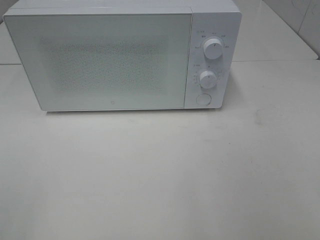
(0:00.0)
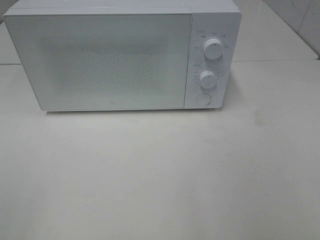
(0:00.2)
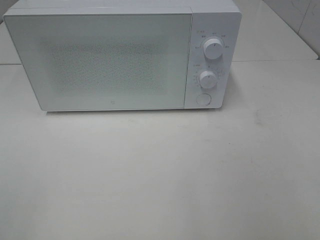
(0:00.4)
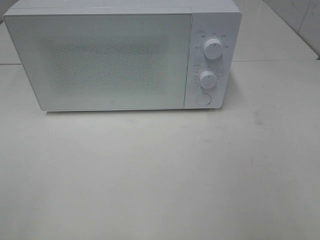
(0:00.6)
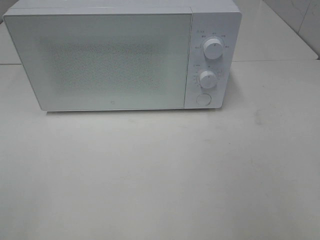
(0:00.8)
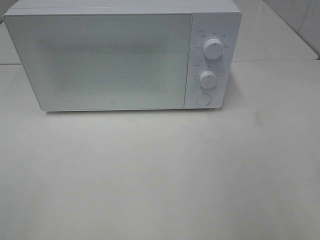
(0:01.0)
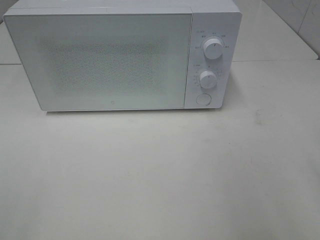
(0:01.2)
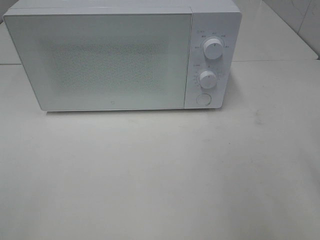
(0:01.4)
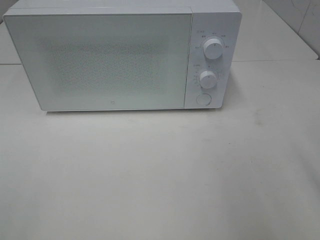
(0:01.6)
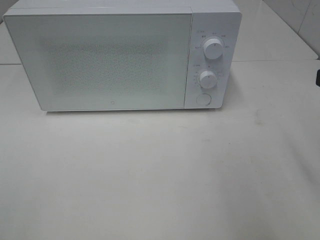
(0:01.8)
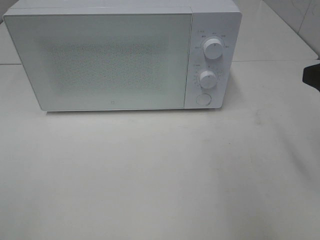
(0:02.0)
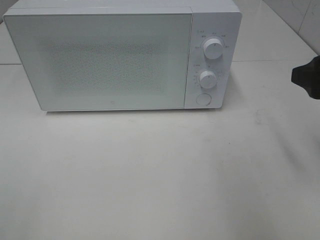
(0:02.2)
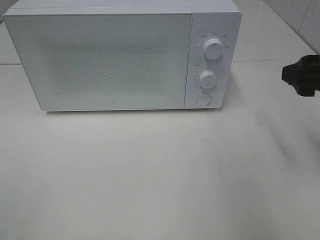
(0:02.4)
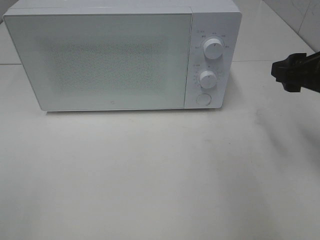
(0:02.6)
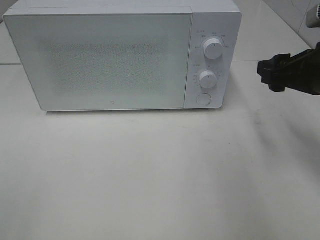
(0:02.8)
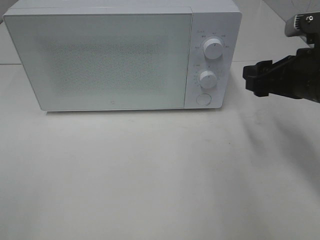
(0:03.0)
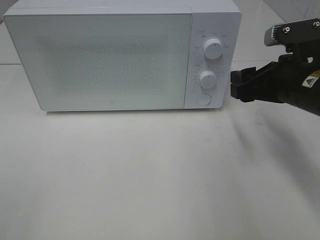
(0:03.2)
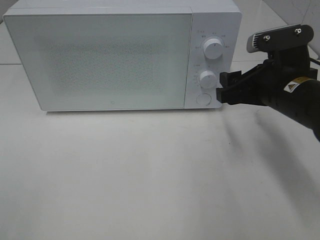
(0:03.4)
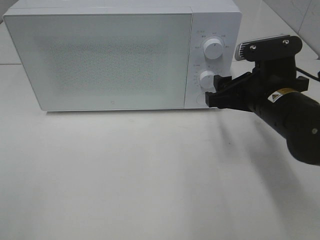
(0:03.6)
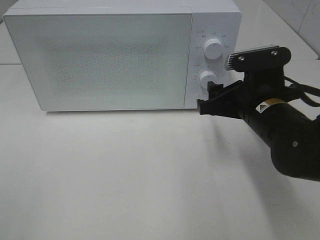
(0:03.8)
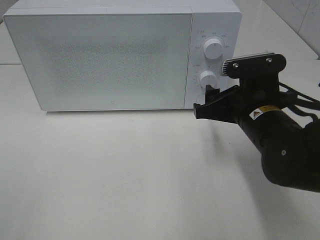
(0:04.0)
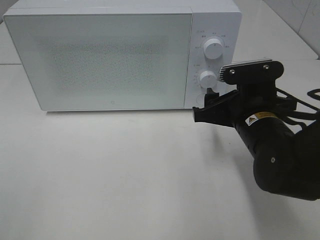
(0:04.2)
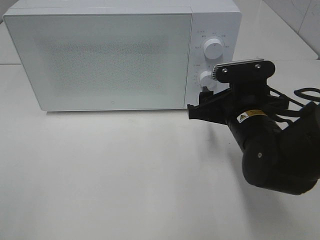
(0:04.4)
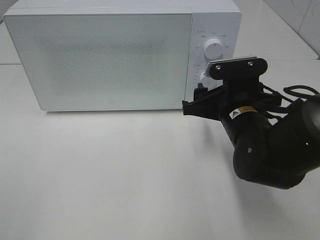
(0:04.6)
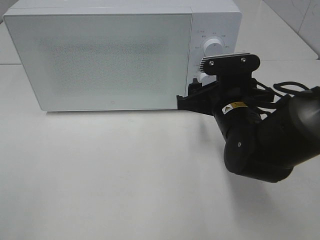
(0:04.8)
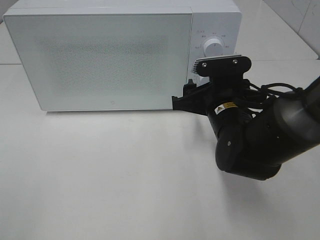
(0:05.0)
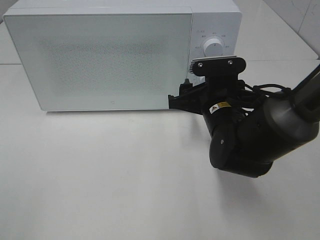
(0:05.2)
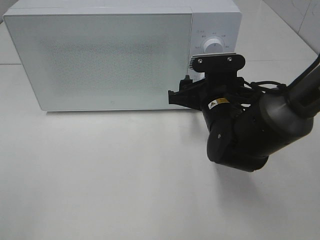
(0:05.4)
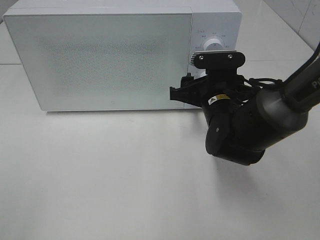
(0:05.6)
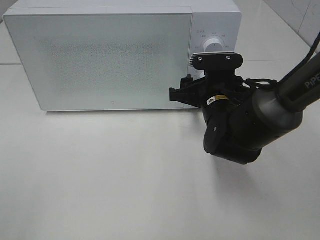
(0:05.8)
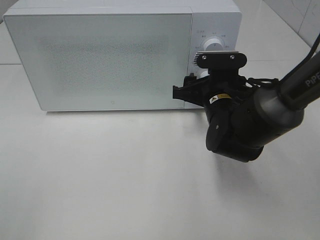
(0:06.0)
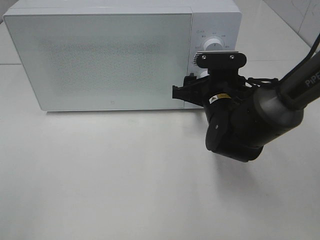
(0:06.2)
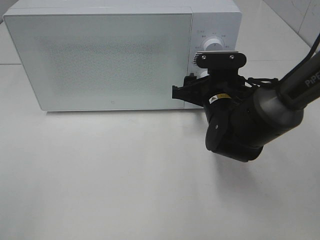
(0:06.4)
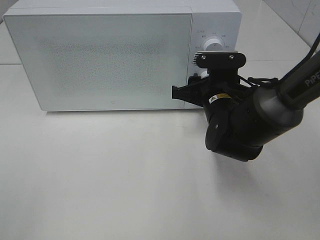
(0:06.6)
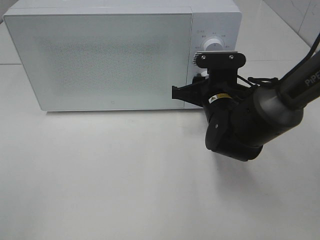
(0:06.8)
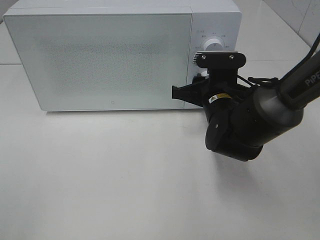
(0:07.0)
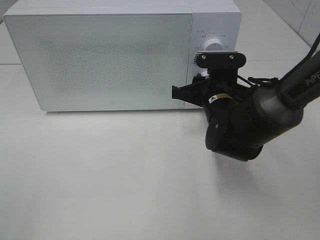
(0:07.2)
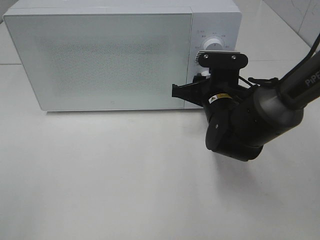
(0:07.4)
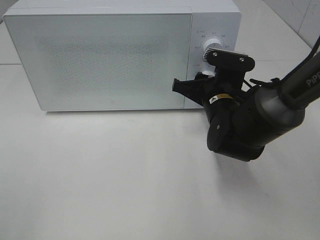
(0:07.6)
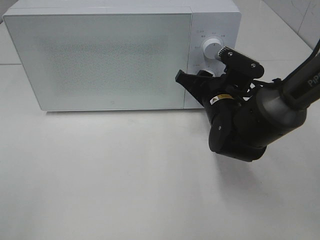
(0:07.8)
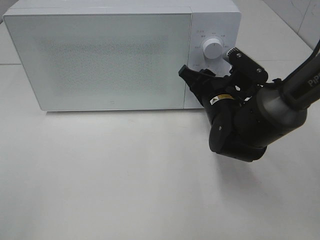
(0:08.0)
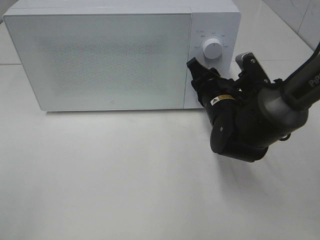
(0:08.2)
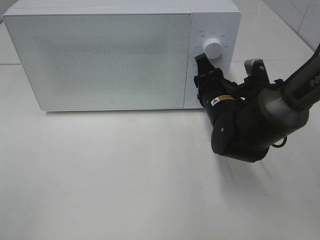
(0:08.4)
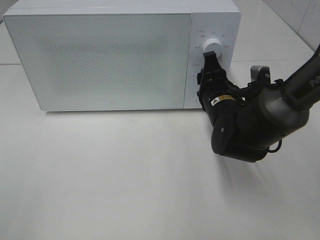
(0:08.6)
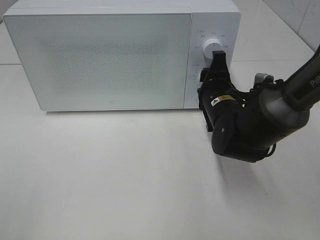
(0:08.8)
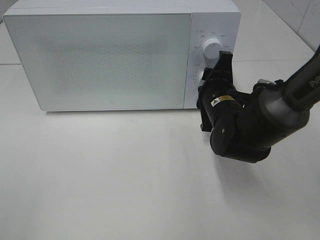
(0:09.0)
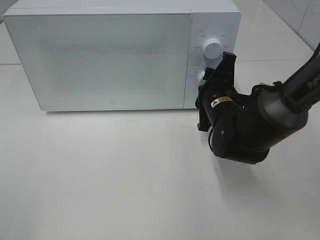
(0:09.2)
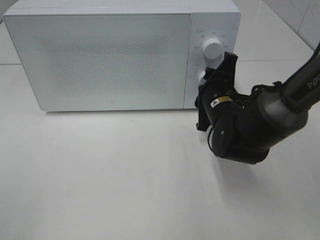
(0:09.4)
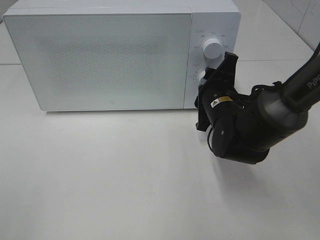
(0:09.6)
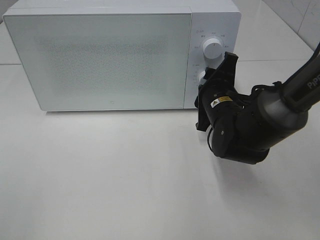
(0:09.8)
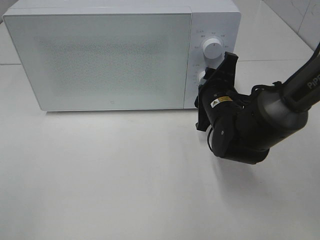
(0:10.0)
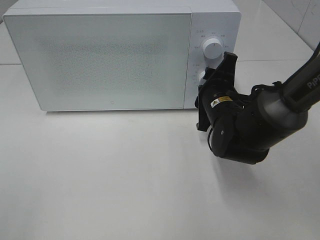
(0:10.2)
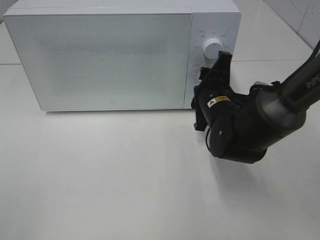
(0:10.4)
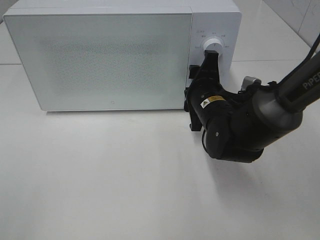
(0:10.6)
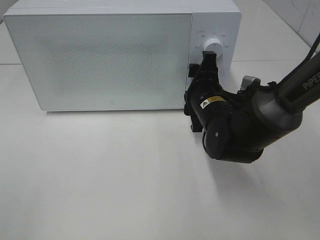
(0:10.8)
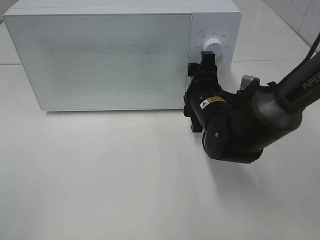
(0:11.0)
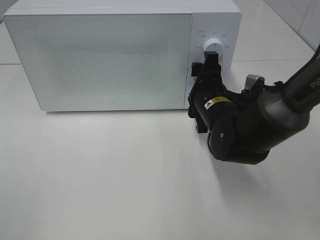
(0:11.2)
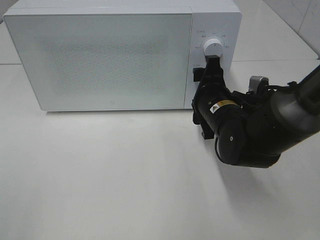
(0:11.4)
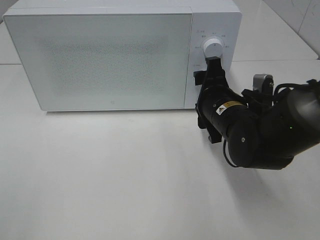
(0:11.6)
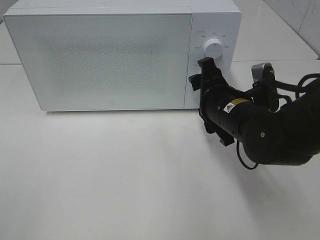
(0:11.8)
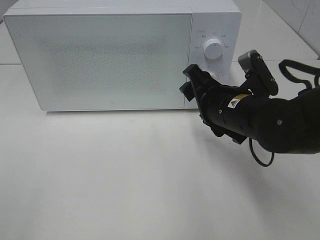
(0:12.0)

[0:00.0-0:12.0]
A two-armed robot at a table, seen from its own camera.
Task of the whole recording: Heat the burger.
Step, 0:00.0 to 0:10.4: Right hand: twist timer button.
0:01.6 to 0:03.0: The right gripper travels forward and downward by about 15 cm.
0:03.0 to 0:04.4: The right gripper goes about 10 cm to the left and downward.
0:04.4 to 0:06.0: The right gripper shifts roughly 5 cm forward.
0:06.0 to 0:07.6: The right gripper closes up.
0:09.0 to 0:10.4: The grippers stay close to where they were, moving slightly.
0:10.4 to 0:12.0: The right gripper travels backward by about 5 cm.

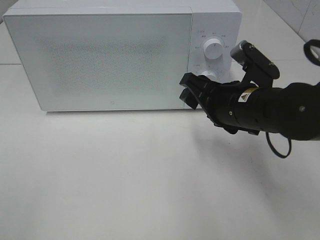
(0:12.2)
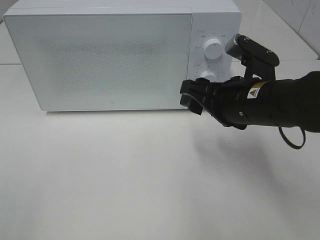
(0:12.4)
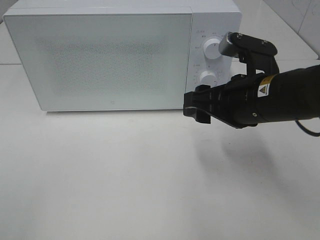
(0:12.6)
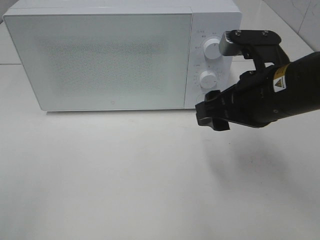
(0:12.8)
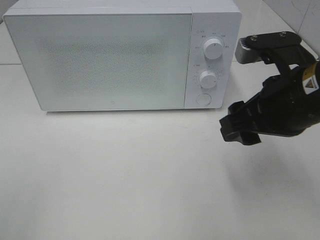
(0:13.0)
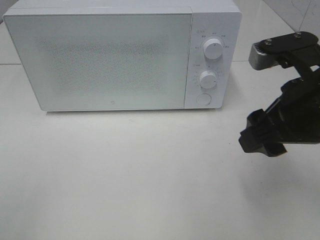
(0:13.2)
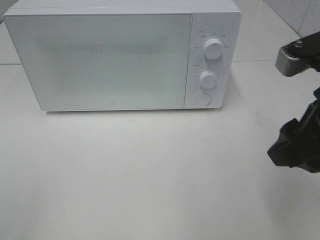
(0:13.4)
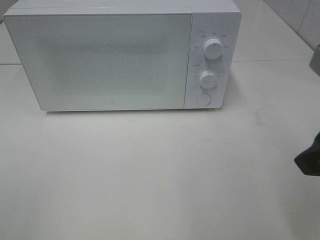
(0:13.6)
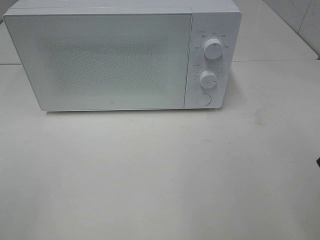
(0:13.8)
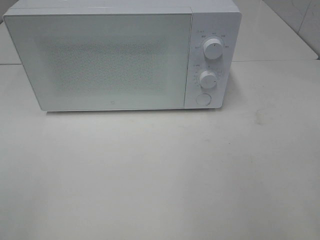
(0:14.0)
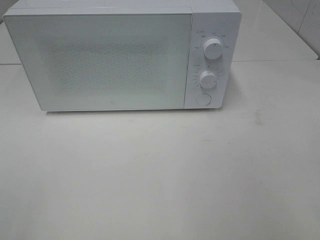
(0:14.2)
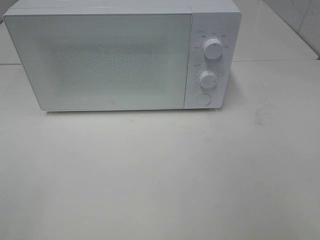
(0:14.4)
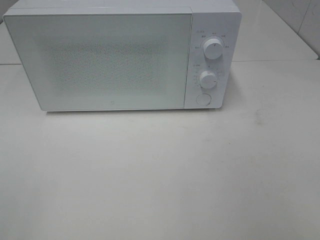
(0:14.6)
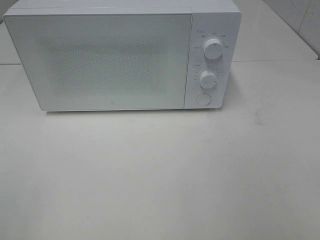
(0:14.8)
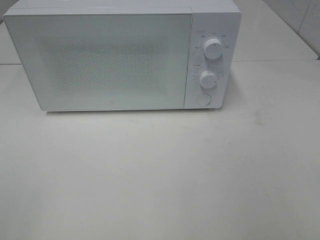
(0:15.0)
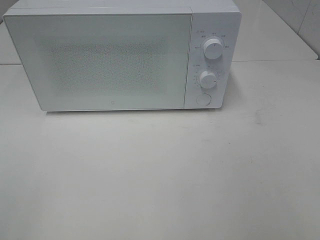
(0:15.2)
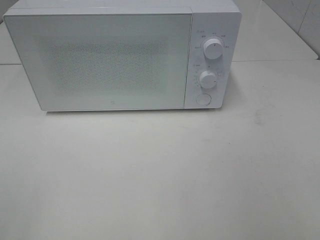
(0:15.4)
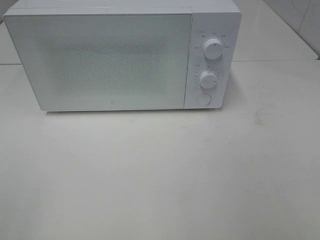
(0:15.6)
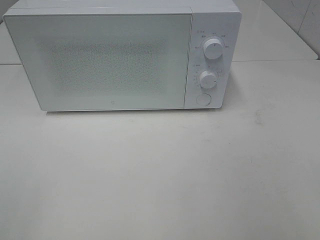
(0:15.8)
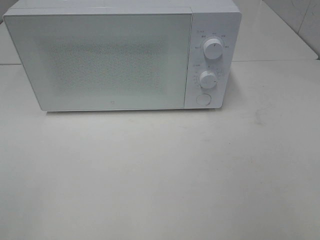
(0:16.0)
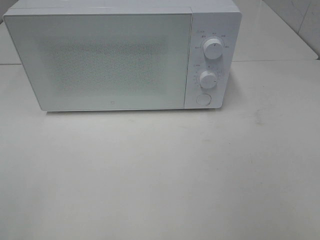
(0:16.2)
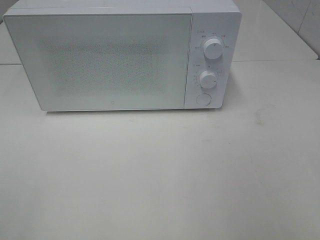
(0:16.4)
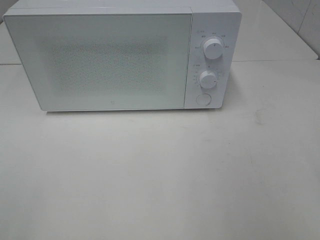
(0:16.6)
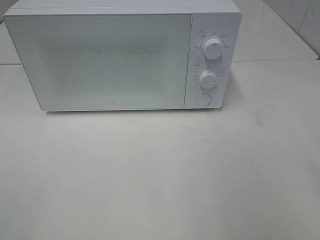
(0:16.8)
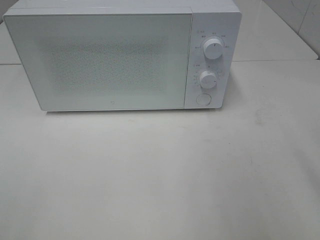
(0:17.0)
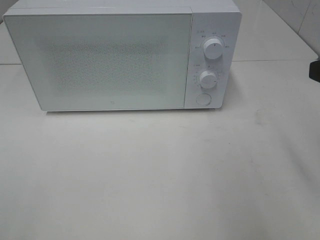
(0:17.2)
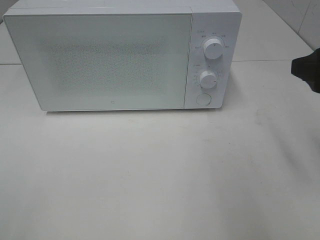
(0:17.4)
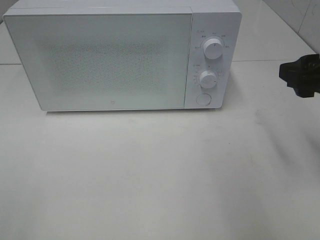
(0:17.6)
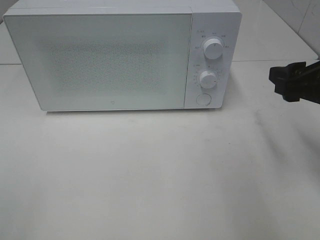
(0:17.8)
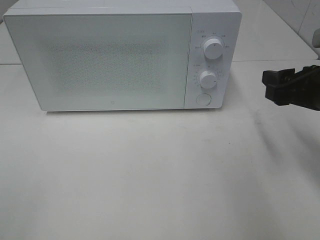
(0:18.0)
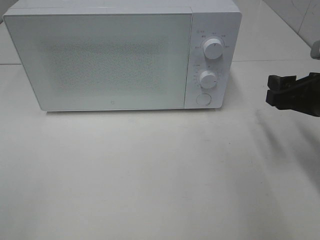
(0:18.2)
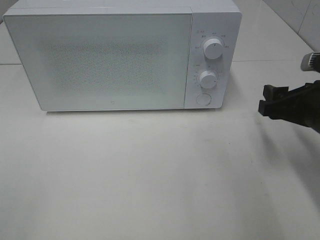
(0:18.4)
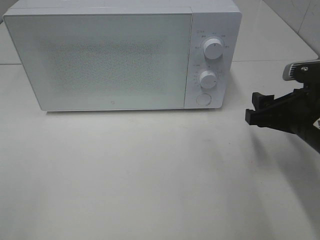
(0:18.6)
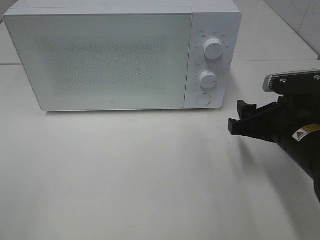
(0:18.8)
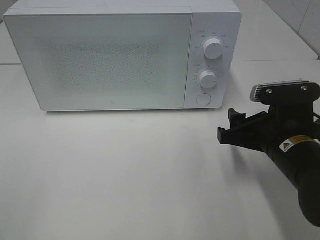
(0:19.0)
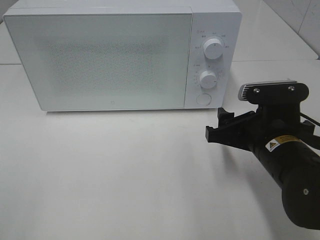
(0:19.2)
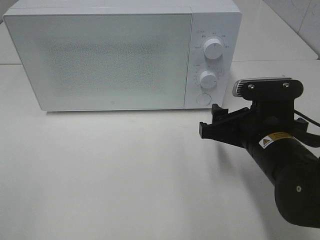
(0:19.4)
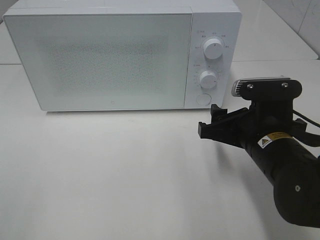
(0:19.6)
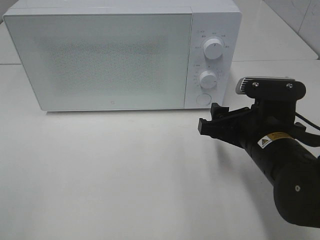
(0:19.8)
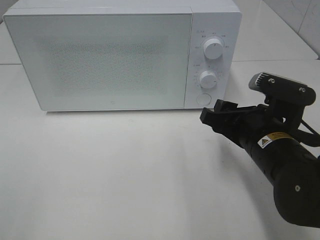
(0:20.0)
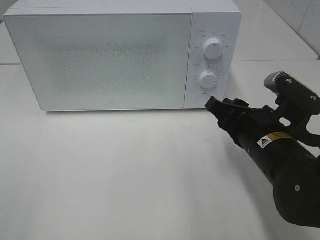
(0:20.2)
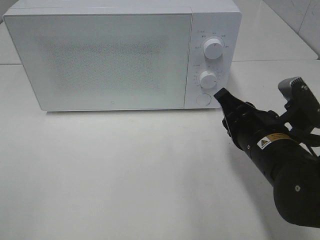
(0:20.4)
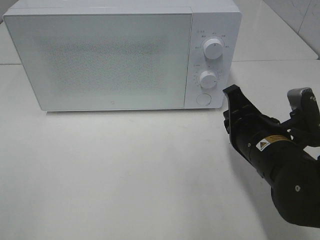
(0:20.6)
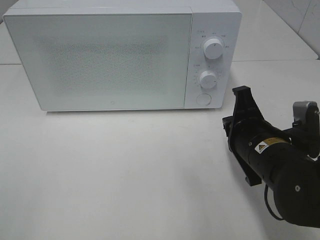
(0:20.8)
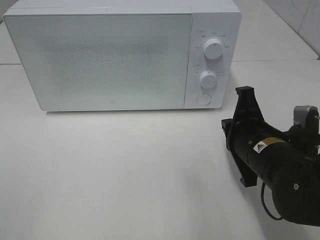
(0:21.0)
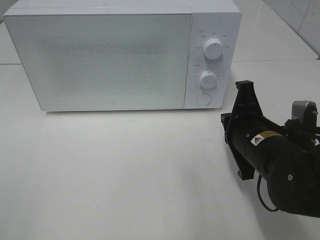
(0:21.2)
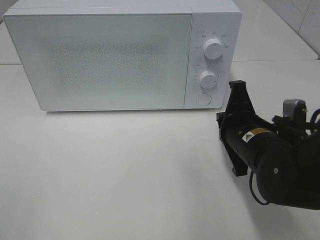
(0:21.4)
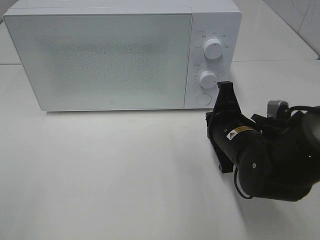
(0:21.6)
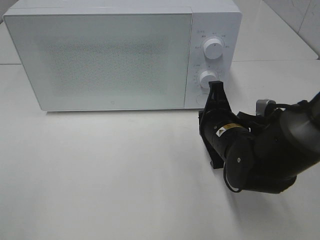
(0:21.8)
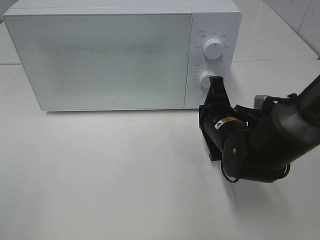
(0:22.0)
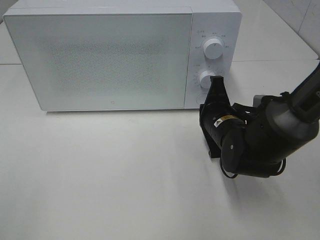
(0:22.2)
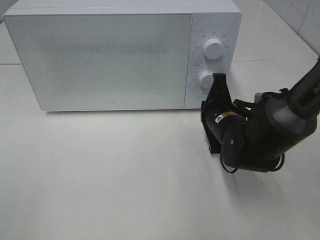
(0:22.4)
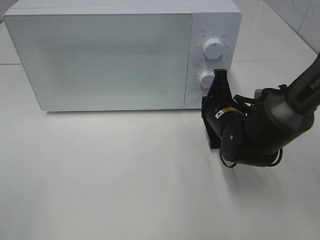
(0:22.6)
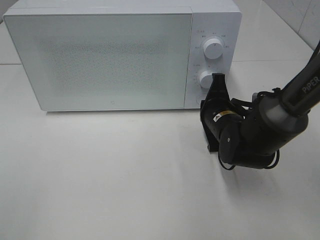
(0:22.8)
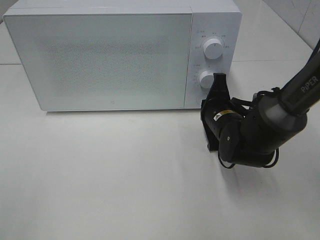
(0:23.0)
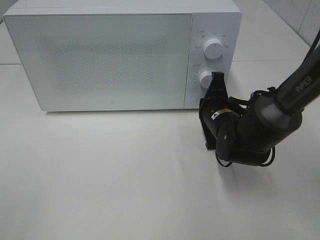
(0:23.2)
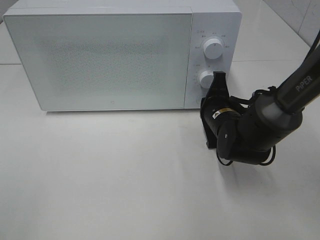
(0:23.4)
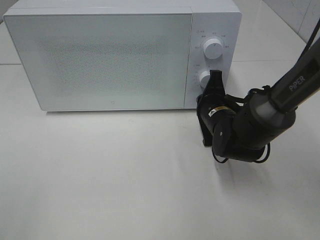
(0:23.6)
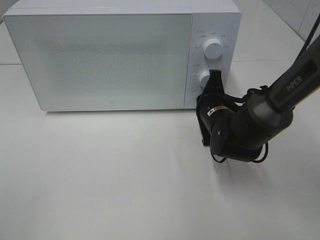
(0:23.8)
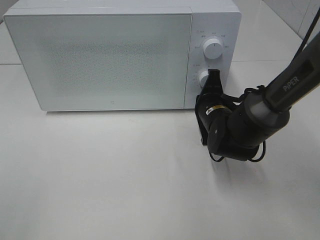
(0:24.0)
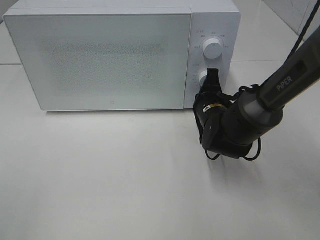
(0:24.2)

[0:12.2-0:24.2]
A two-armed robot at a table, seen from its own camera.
Task of the whole recording: Heat the burger.
0:12.2 to 0:13.8: The right gripper goes about 20 cm backward, upward and to the right.
0:16.6 to 0:18.2: The right gripper goes approximately 20 cm forward and downward.
0:18.2 to 0:19.8: The right gripper heads to the left, covering some 10 cm.
0:19.8 to 0:21.2: The right gripper closes up.
0:21.2 to 0:22.6: The right gripper is displaced forward by approximately 10 cm.
0:22.6 to 0:24.2: There are only small adjustments of the grippers.
